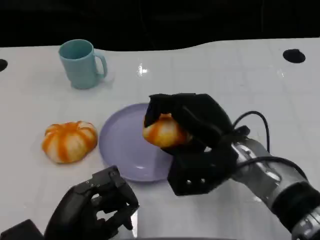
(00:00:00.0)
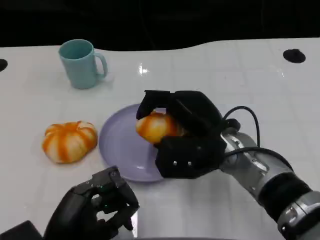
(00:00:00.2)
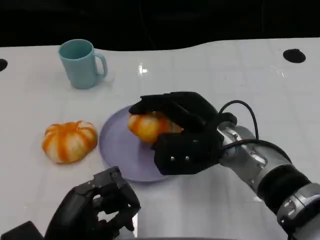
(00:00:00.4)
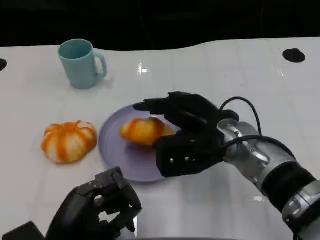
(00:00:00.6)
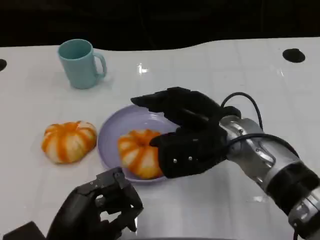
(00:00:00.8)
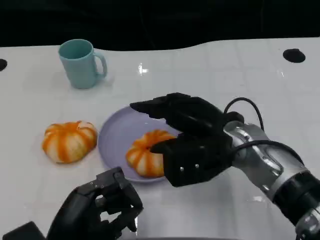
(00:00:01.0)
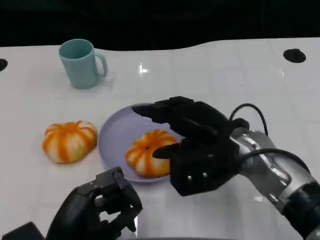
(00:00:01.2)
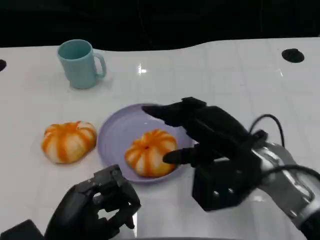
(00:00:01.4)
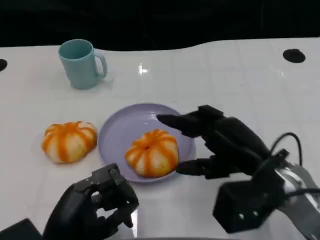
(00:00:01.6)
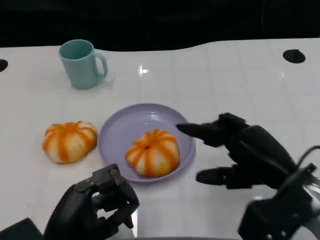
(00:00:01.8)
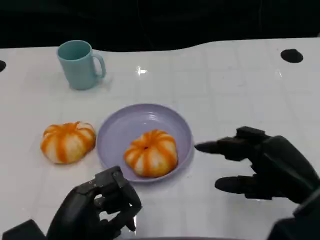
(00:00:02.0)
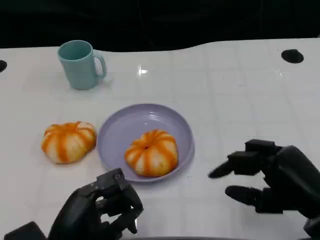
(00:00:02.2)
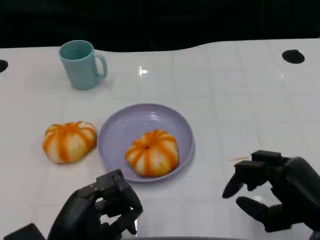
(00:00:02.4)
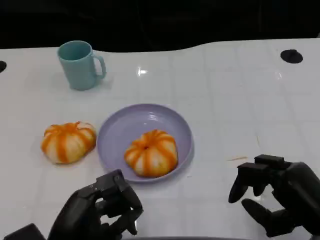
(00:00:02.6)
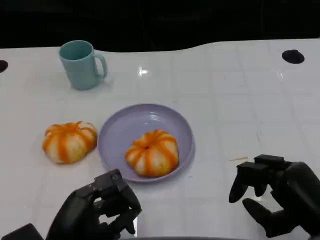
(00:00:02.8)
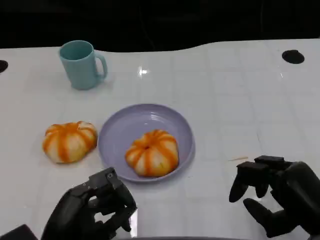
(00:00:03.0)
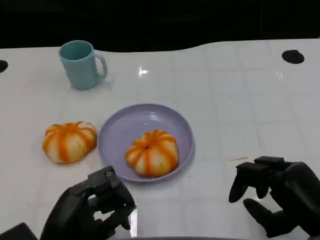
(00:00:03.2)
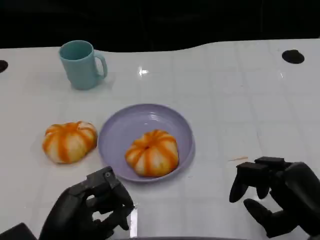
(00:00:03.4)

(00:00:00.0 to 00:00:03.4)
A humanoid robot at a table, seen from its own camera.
Task of the whole recording: Grasp the bread from the table and place it into the plate.
00:00:00.0 - 00:00:01.6: The right hand heads to the right, covering about 5 cm.
00:00:01.6 - 00:00:03.4: The right hand shifts about 10 cm backward and to the right.

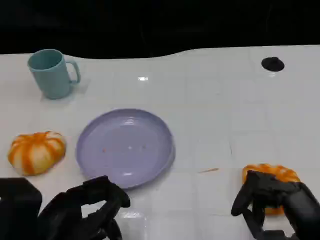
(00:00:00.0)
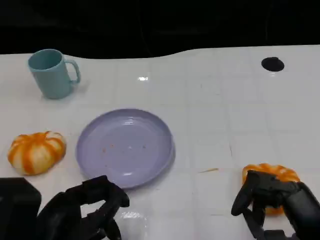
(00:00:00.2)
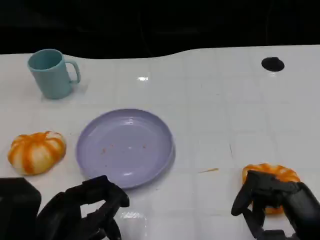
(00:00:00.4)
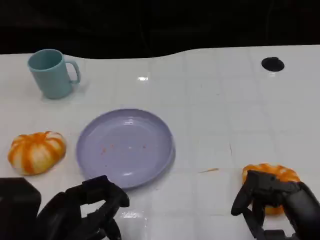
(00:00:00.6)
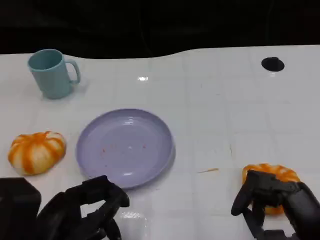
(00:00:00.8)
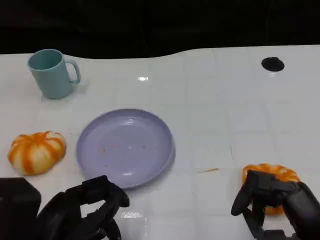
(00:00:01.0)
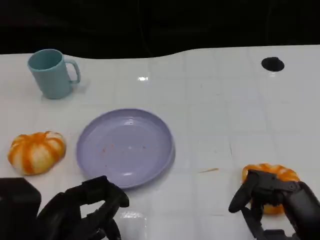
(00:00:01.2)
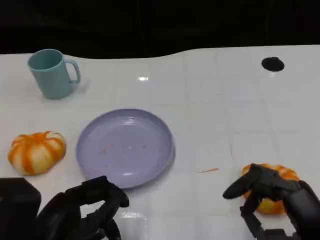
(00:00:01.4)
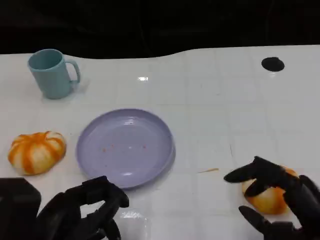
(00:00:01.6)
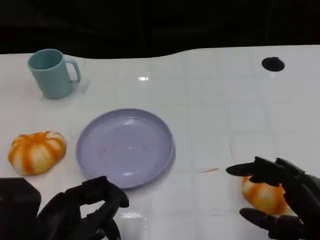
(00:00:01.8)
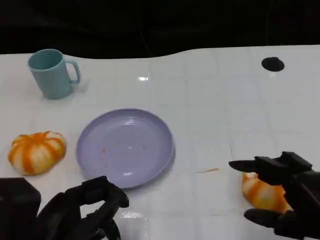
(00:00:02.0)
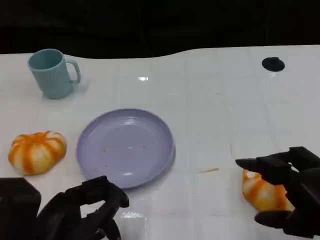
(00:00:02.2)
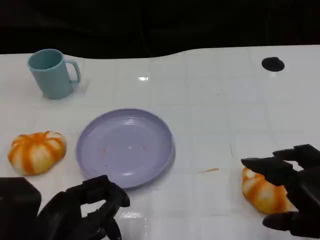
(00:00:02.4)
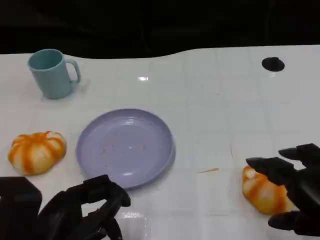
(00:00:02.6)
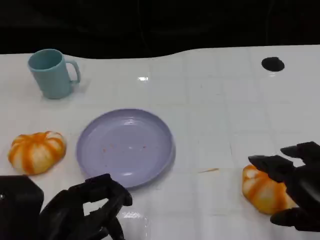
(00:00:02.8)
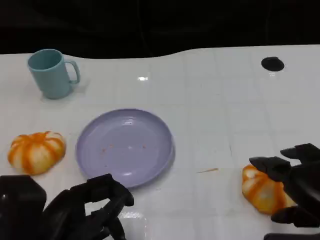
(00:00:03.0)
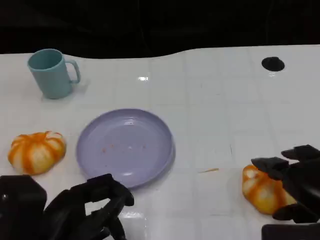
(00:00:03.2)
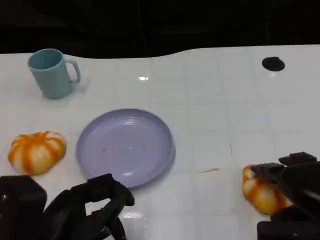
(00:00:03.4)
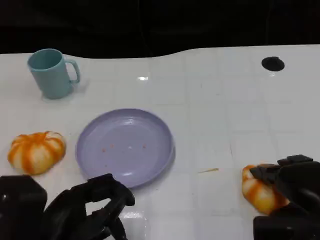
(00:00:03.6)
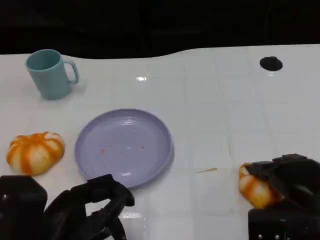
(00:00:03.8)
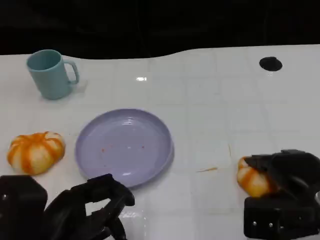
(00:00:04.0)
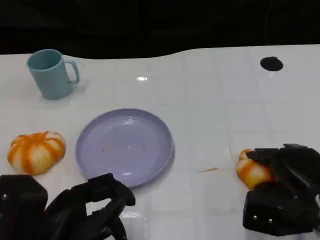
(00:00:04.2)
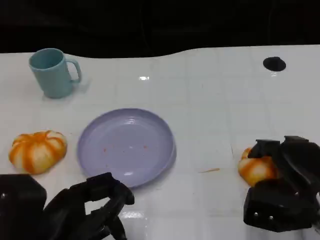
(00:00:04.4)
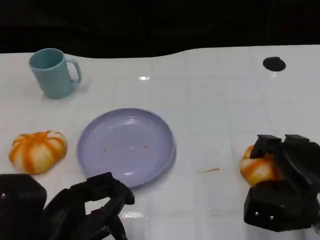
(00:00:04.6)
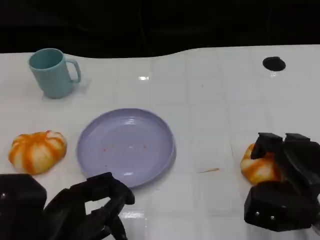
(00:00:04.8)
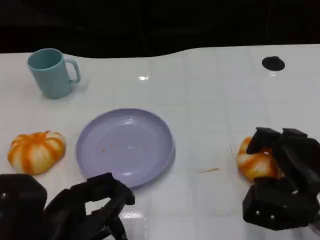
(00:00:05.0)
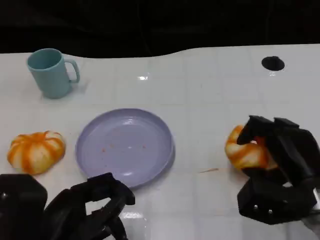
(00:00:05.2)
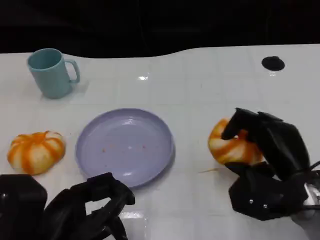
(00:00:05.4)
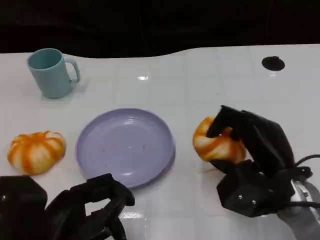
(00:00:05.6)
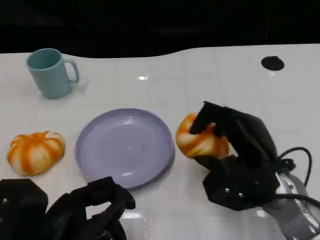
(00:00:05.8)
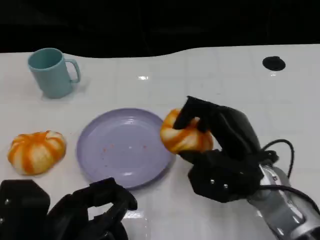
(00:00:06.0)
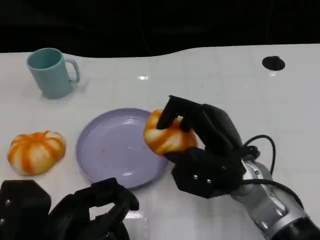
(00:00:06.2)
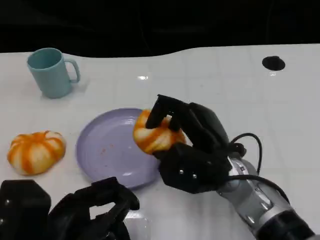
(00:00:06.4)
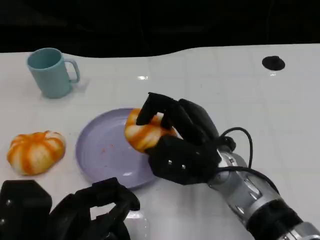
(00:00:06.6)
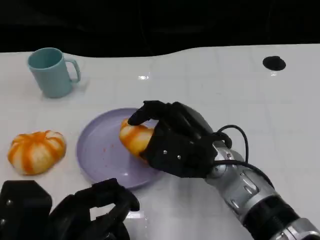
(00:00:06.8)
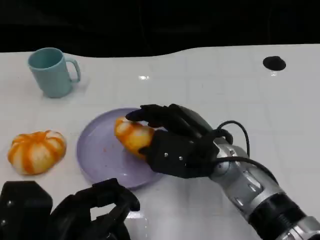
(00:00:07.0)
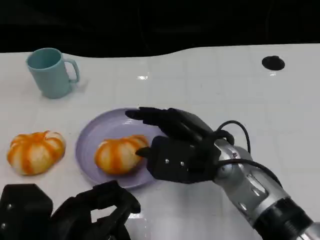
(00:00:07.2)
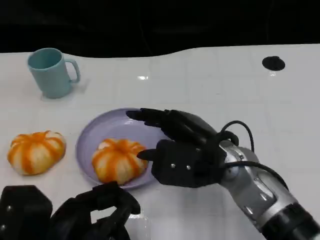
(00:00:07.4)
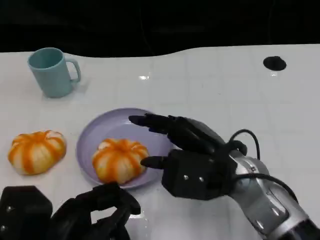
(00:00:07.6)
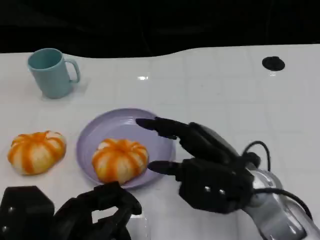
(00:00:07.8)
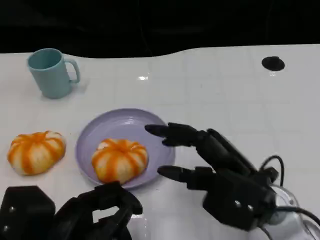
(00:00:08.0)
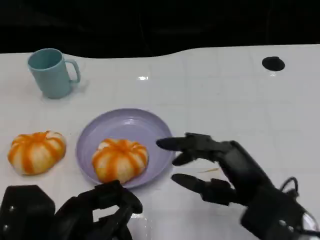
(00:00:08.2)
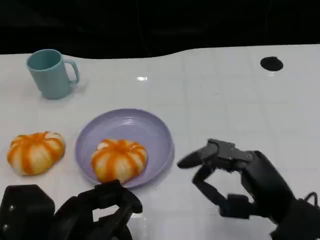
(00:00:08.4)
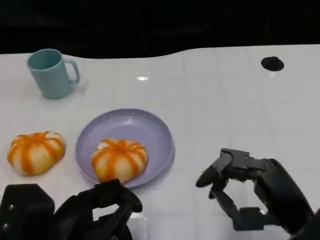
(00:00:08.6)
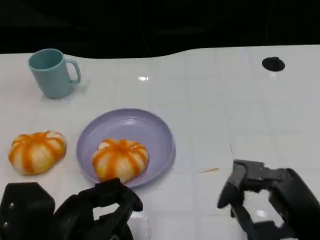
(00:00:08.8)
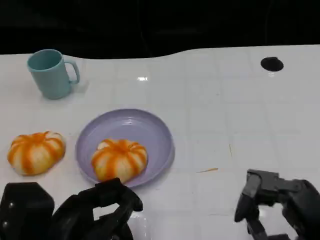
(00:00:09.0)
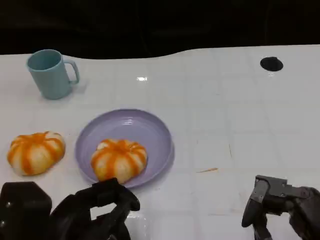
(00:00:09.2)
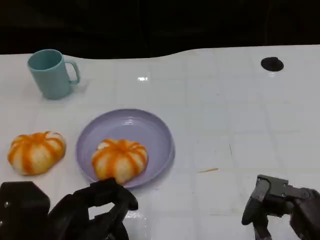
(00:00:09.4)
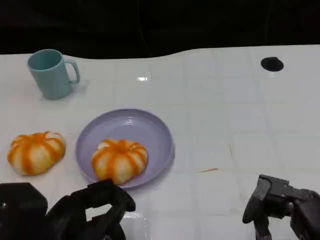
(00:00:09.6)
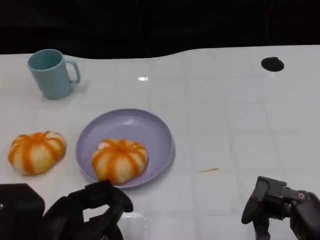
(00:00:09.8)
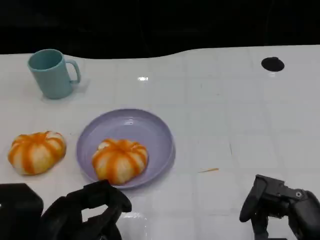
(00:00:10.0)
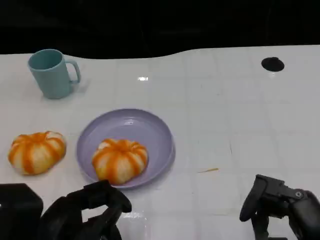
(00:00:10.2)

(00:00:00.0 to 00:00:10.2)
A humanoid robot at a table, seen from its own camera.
Task of the whole recording: Grasp the bread from the table and place it into the plate.
00:00:00.0 - 00:00:01.4: Both hands stay about where they are.
00:00:03.0 - 00:00:04.4: The right hand moves downward and forward, approximately 10 cm.
00:00:04.4 - 00:00:05.8: The right hand heads to the left, covering roughly 10 cm.
00:00:05.8 - 00:00:07.2: The right hand heads to the left, covering about 5 cm.
00:00:07.2 - 00:00:08.8: The right hand travels to the right and backward by approximately 20 cm.
00:00:08.8 - 00:00:10.2: The hands make only small movements.
